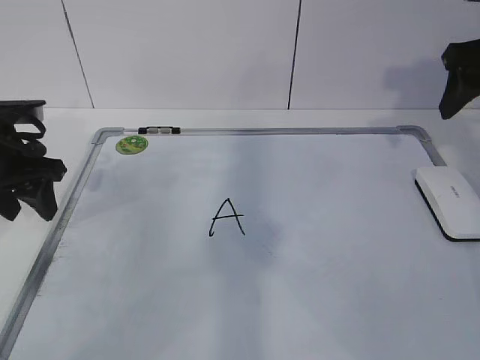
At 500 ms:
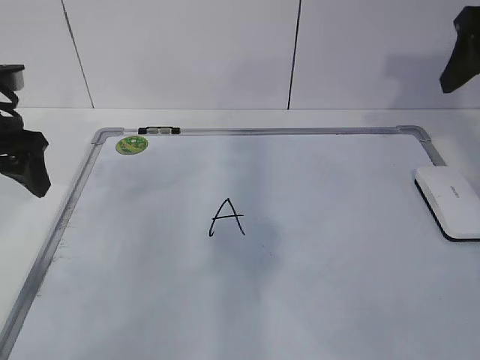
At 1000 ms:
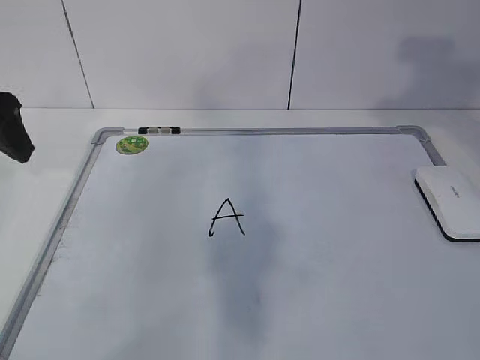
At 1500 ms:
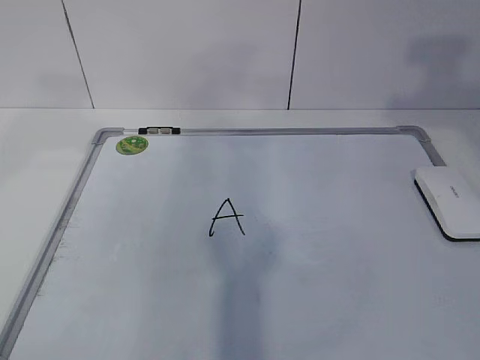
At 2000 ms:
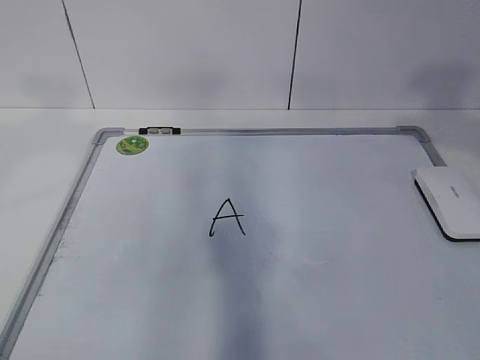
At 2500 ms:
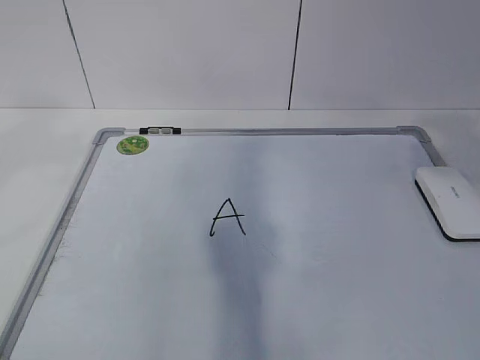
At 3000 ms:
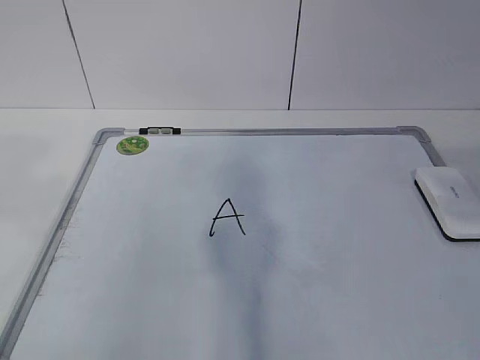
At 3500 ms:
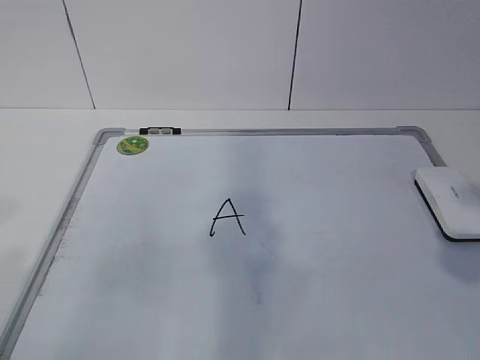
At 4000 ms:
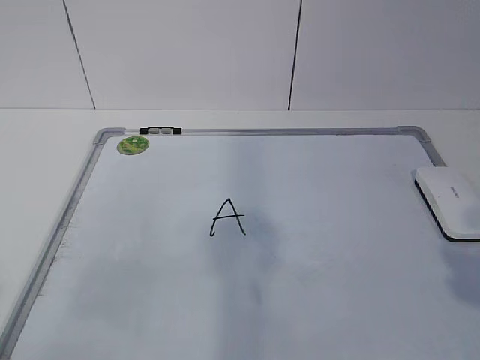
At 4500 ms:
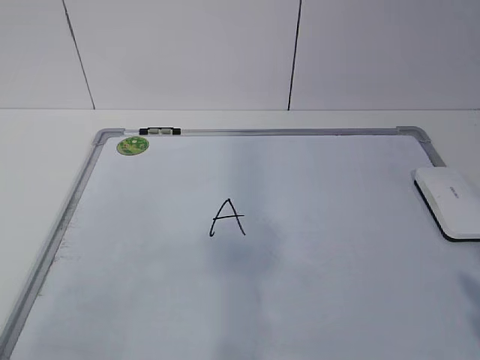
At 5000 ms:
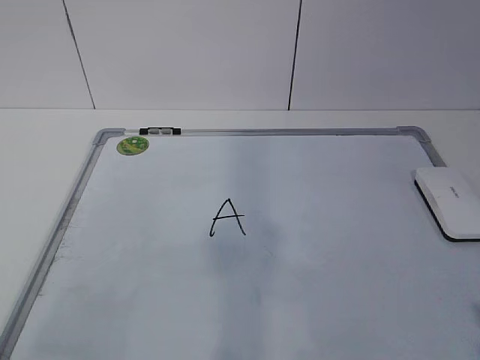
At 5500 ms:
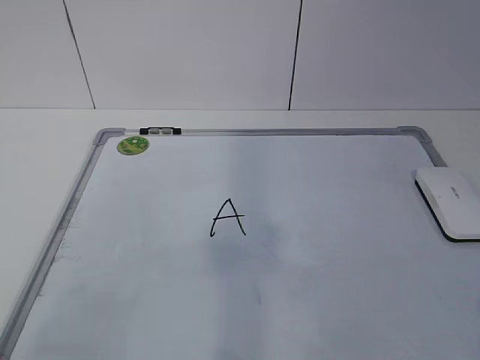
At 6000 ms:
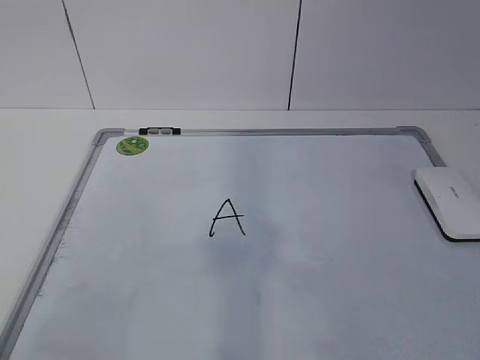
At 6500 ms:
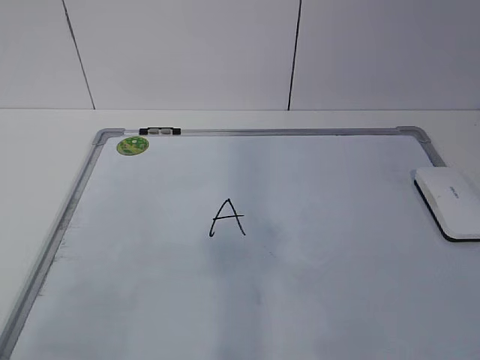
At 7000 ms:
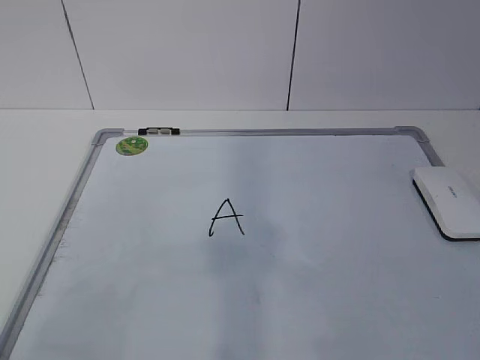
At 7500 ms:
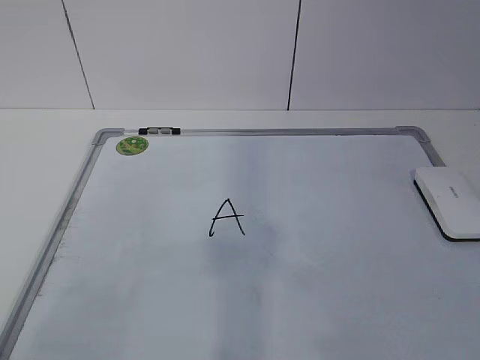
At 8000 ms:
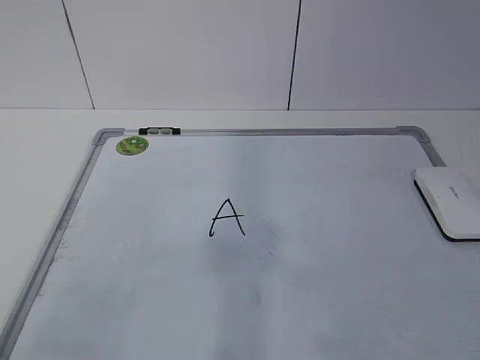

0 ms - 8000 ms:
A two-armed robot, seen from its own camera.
Task of the whole recording: pick up the eraser on the blackboard and erase the letter "a".
0 ms - 2000 ms: The right gripper heads backward and upward, covering about 25 cm; the left gripper is displaced upward and backward by some 30 cm.
2000 ms - 4000 ms: The right gripper shifts some 20 cm downward and backward; the left gripper travels backward and downward by some 20 cm.
6000 ms - 8000 ms: Neither gripper changes place.

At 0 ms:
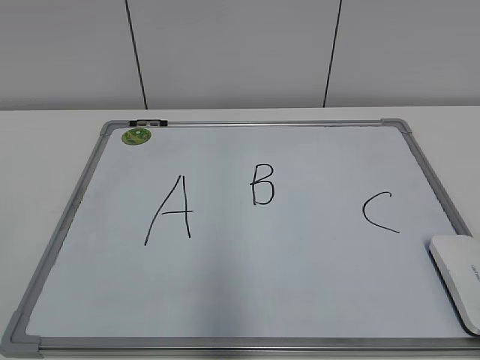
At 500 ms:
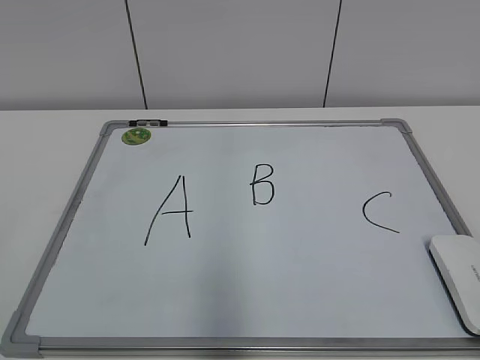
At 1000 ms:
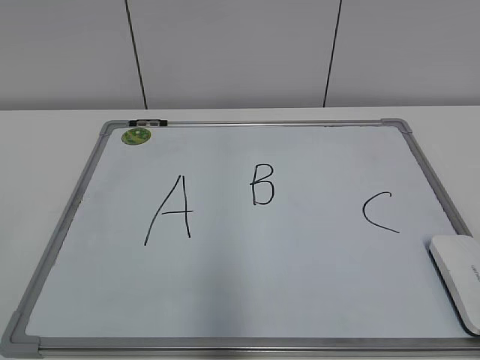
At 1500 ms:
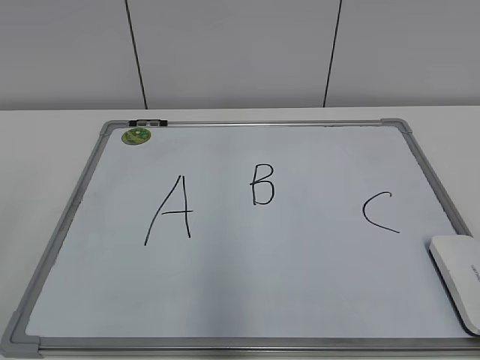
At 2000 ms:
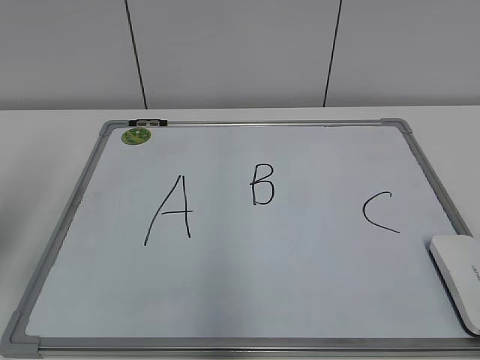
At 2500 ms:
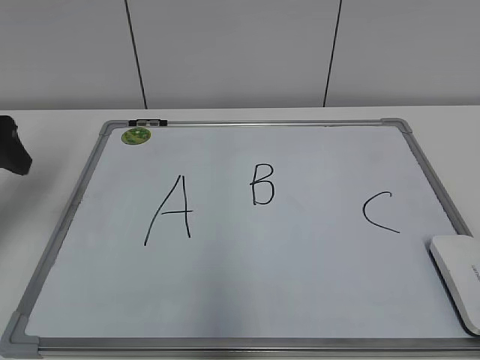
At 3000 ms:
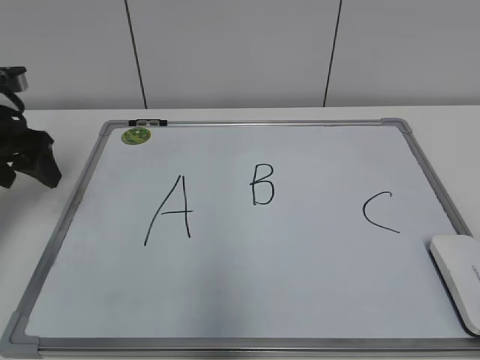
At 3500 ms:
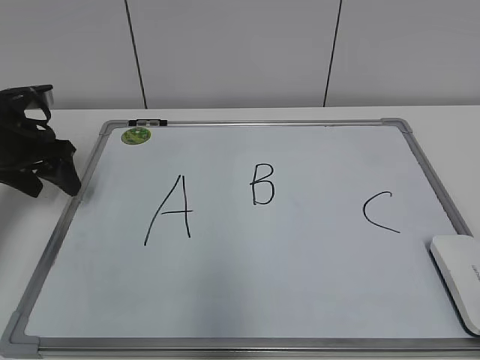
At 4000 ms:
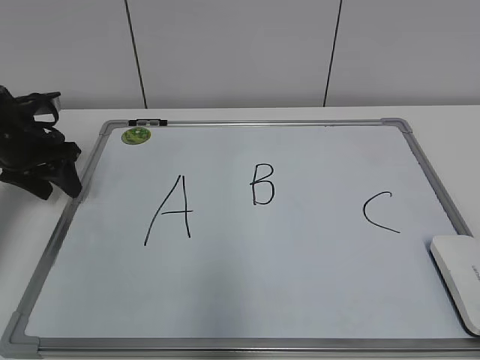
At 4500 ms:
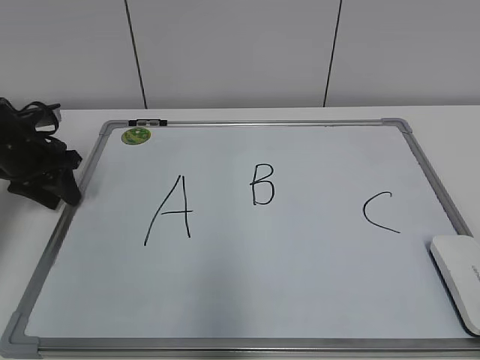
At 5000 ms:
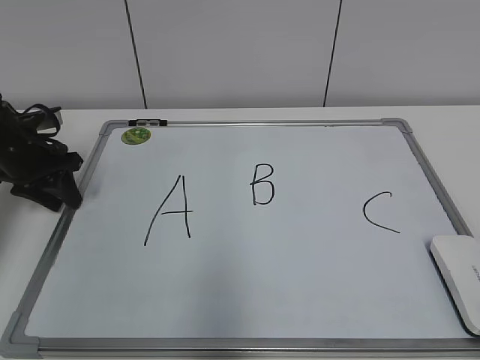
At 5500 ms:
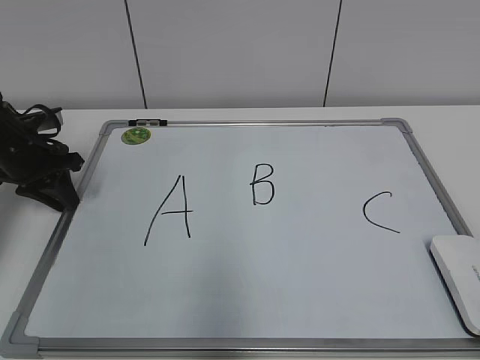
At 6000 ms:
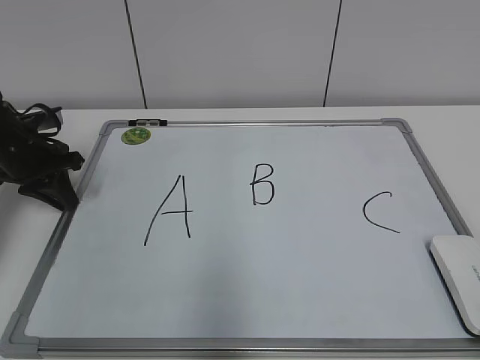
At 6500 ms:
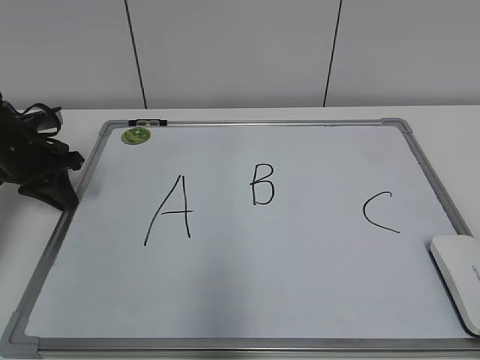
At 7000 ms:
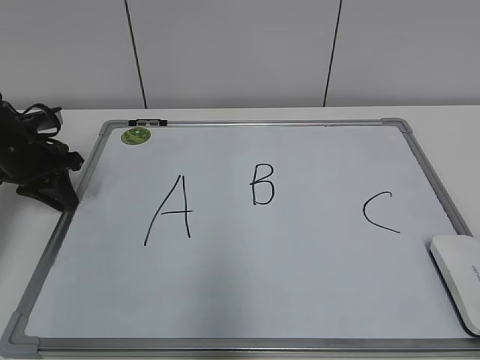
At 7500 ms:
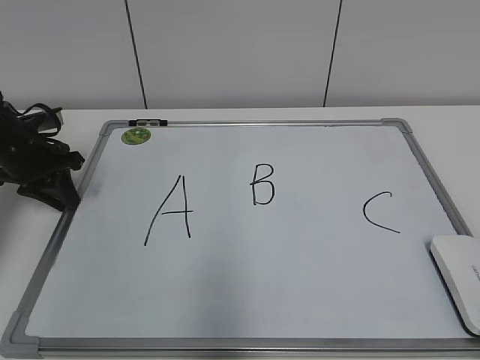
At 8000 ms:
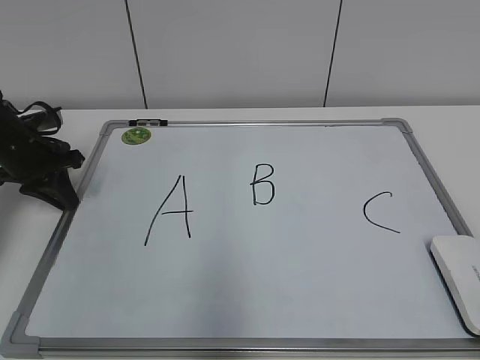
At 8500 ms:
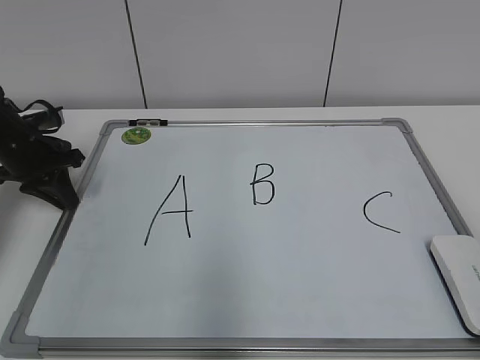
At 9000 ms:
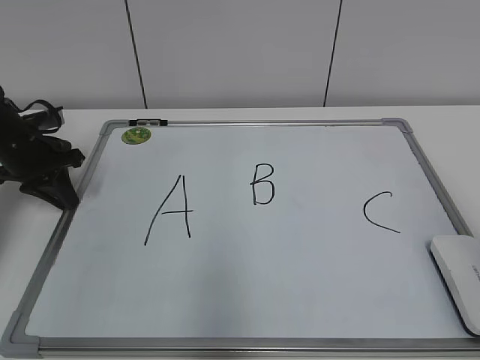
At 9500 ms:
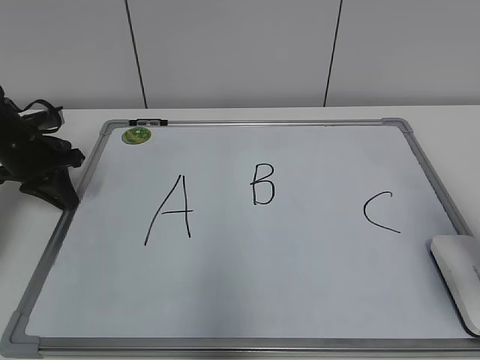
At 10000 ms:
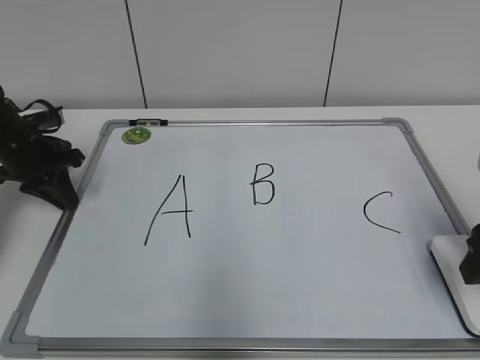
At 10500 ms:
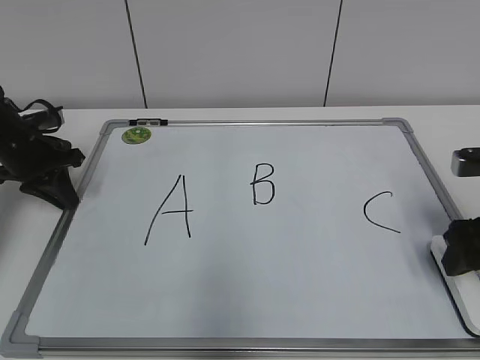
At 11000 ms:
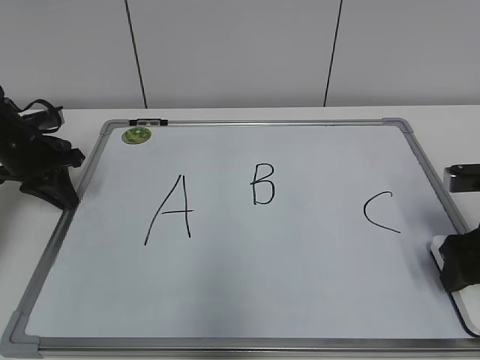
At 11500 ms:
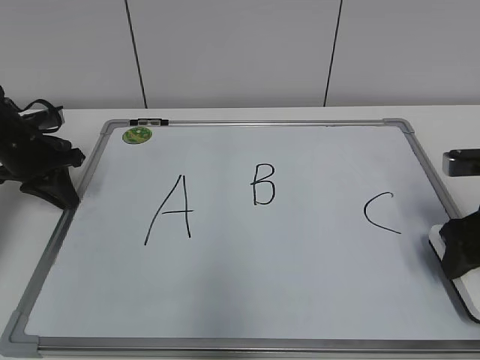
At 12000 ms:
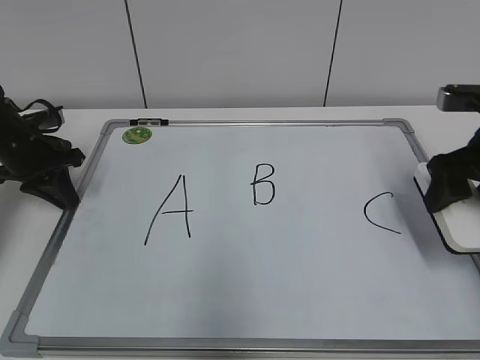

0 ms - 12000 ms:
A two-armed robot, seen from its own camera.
Task of the whole recording: pick up the eraser on the blackboard and erase the letter "B".
Step, 0 ms - 7500 ms: Hold the drawing board steady with your left hand.
Step, 8000 ms - 11000 ms: Grab the eraser with your right hand.
2000 ms - 4000 ms: The left gripper shifts some 25 cm forward and downward.
4000 ms - 6000 ms: The left gripper closes.
6000 ms - 8000 ms: Neither gripper changes place.
8000 ms - 10000 ms: The right gripper heads forward, covering roughly 25 cm.
10000 ms - 12000 ms: The right gripper is displaced forward by approximately 10 cm.

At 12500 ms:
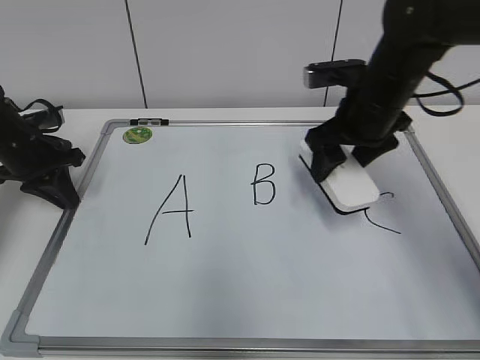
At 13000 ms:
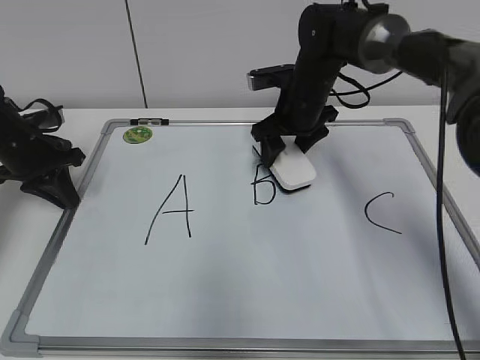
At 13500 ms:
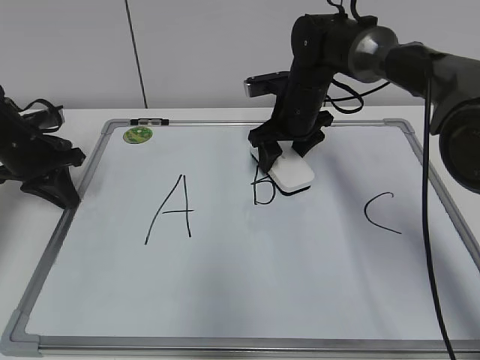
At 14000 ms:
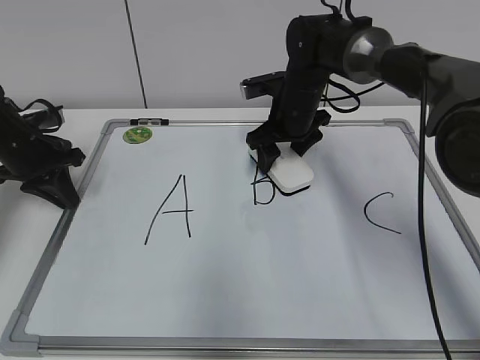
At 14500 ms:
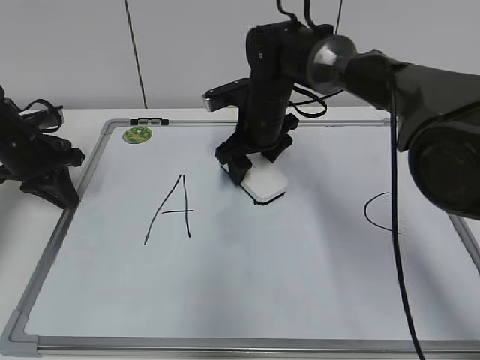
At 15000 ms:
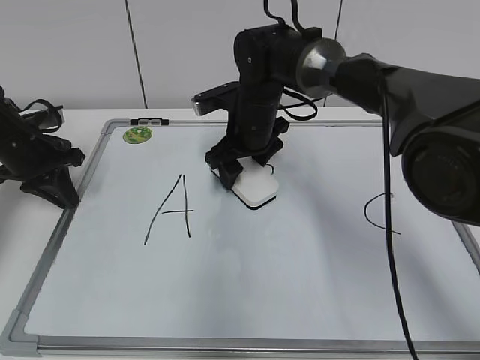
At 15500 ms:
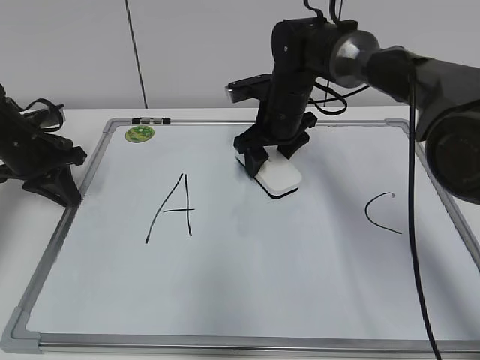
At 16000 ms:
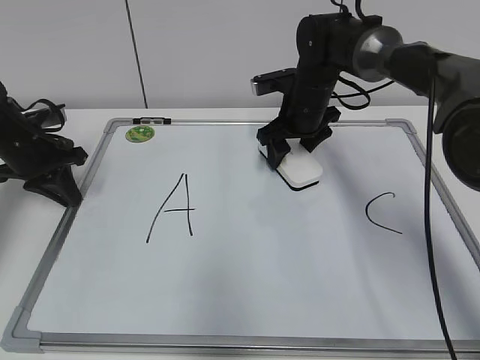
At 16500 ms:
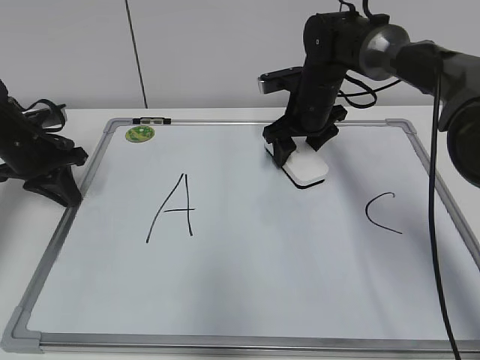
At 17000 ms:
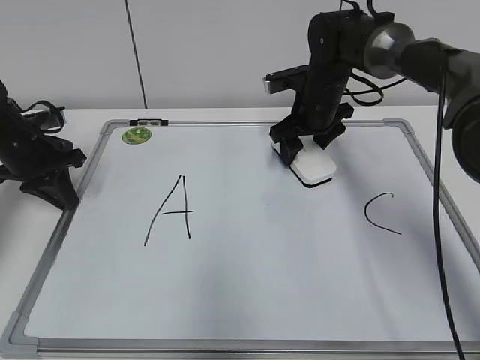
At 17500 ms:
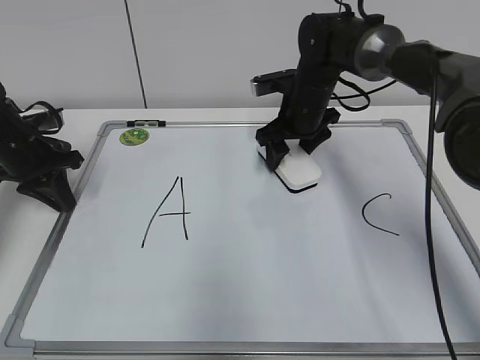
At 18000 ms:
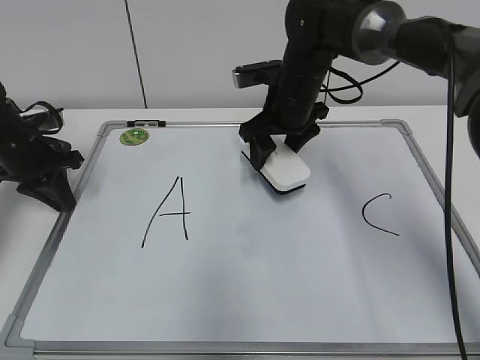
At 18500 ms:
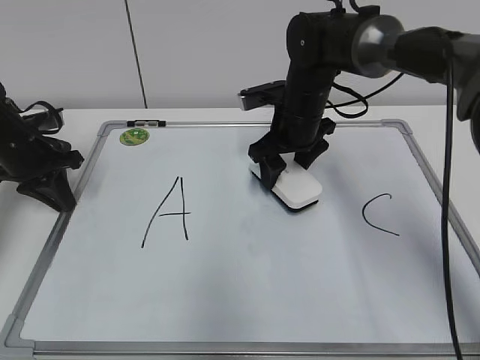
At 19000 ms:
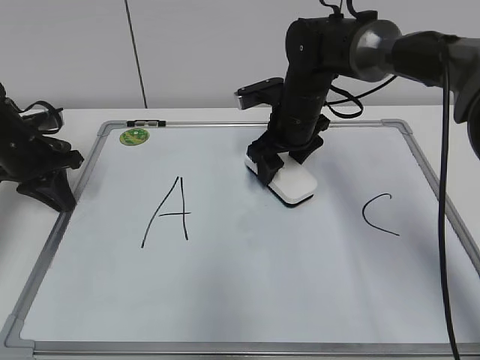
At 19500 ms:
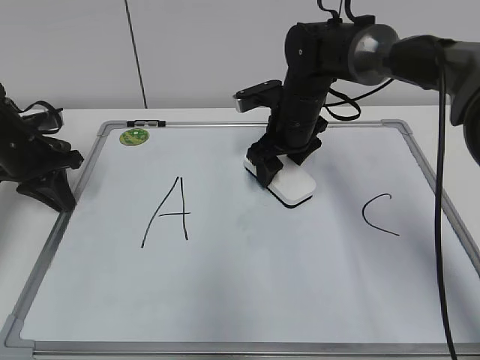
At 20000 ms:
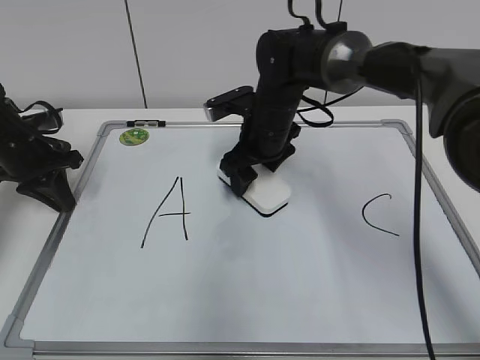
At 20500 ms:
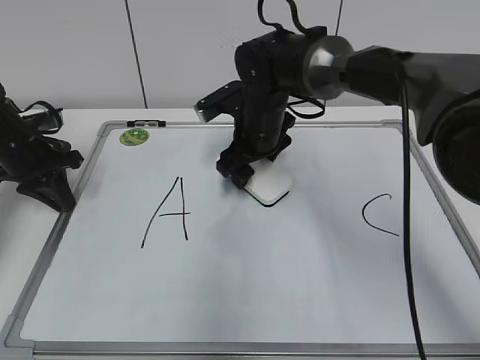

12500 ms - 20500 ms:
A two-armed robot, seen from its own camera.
Task of the whole recording: pick up the eraser on the blackboard and erase the letter "B".
12500 ms - 14500 ms: The right gripper heads to the left, forward and downward, covering some 15 cm.
14500 ms - 16500 ms: The right gripper moves to the right, some 10 cm.
16500 ms - 18500 ms: The right gripper ends up some 5 cm from where it was.
18500 ms - 20500 ms: The right gripper travels to the left by about 5 cm.
